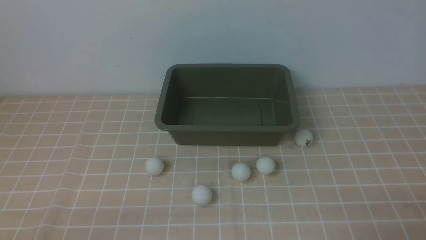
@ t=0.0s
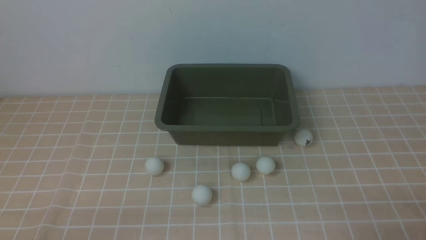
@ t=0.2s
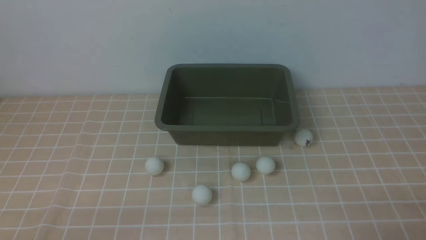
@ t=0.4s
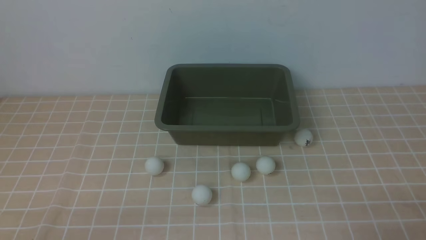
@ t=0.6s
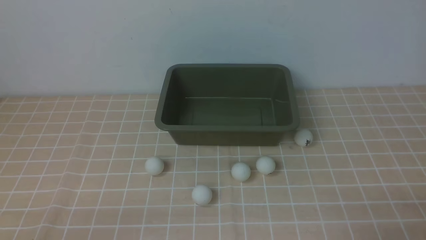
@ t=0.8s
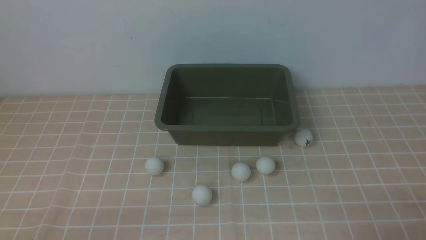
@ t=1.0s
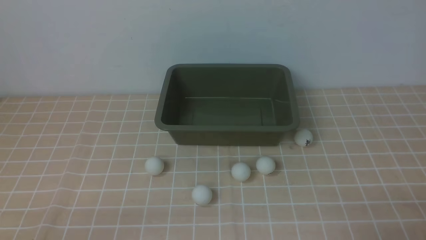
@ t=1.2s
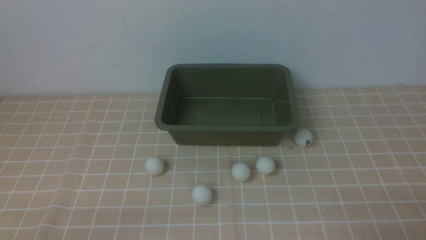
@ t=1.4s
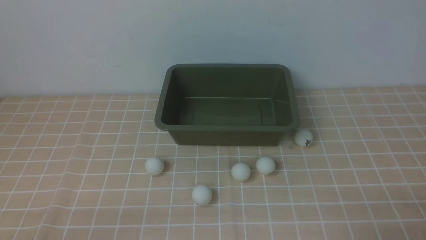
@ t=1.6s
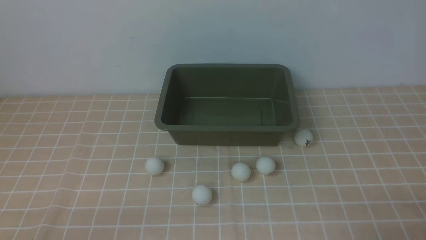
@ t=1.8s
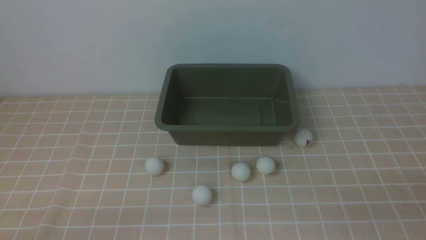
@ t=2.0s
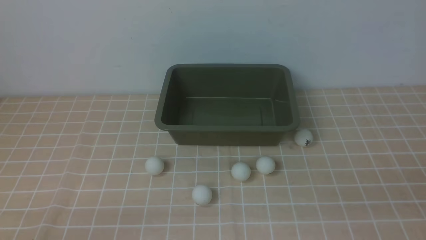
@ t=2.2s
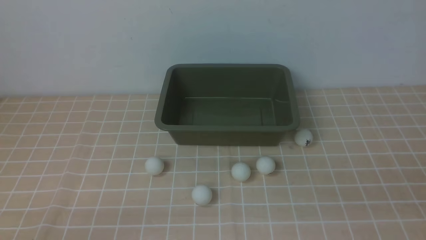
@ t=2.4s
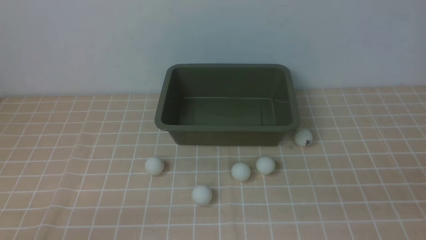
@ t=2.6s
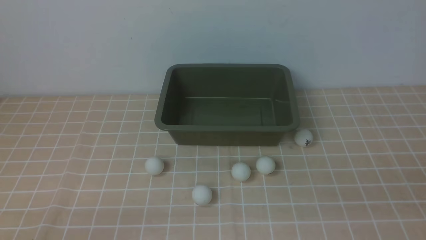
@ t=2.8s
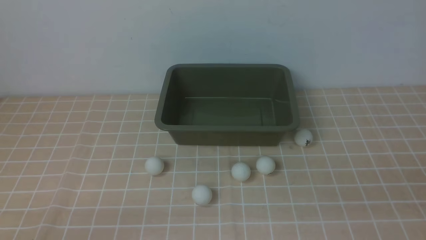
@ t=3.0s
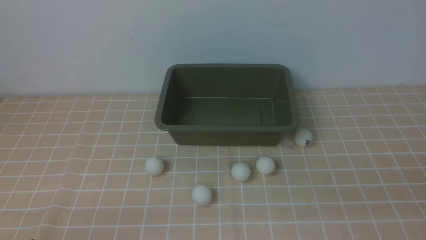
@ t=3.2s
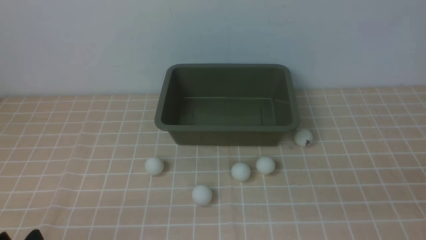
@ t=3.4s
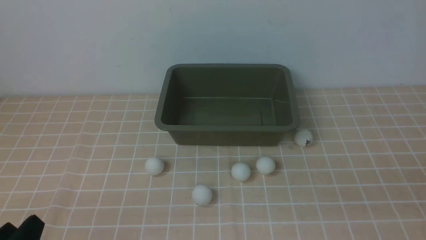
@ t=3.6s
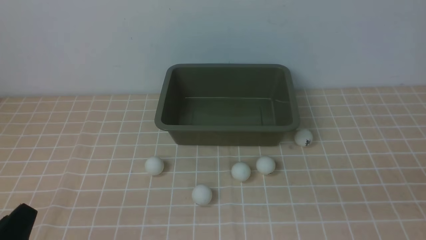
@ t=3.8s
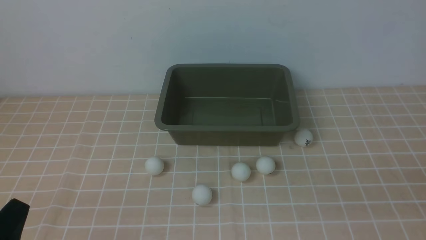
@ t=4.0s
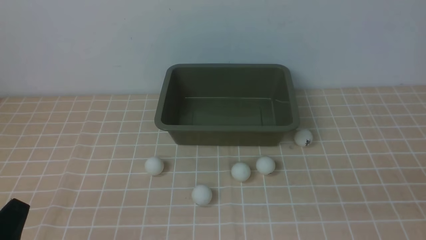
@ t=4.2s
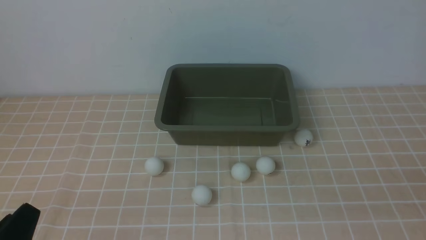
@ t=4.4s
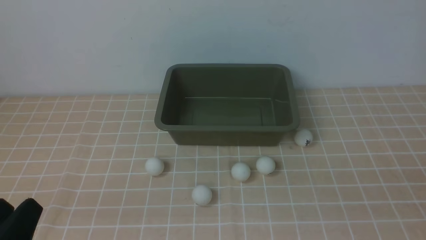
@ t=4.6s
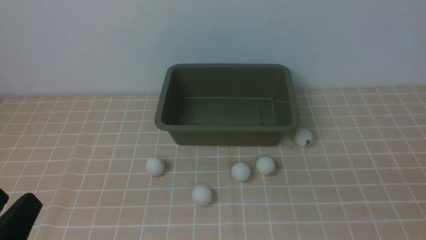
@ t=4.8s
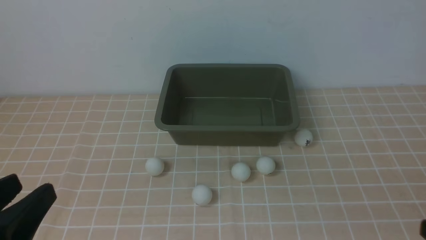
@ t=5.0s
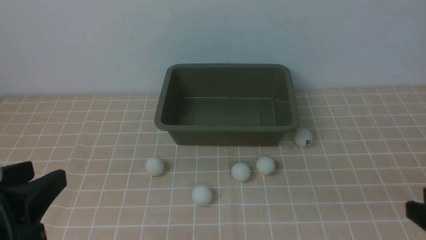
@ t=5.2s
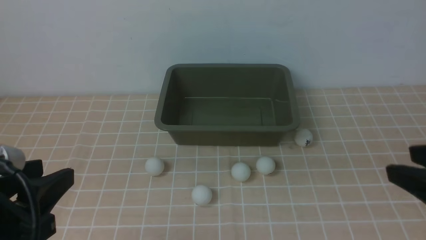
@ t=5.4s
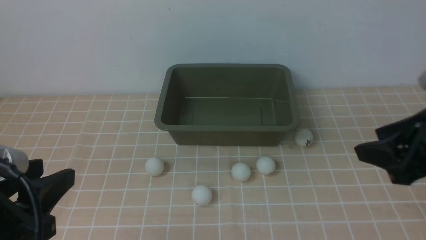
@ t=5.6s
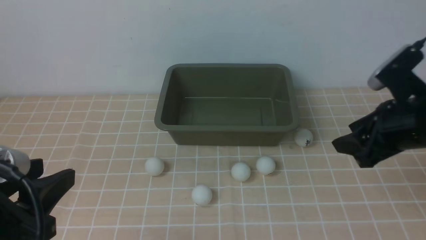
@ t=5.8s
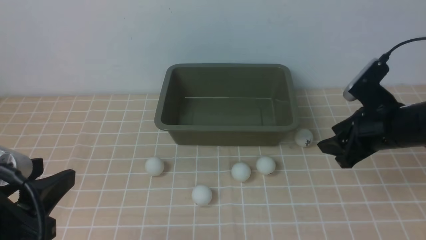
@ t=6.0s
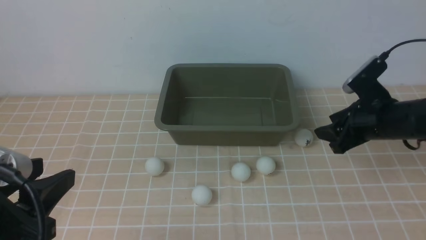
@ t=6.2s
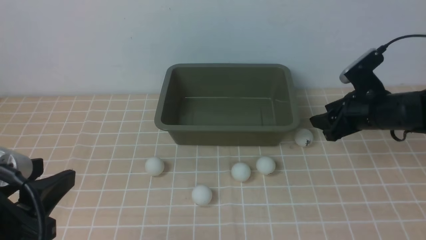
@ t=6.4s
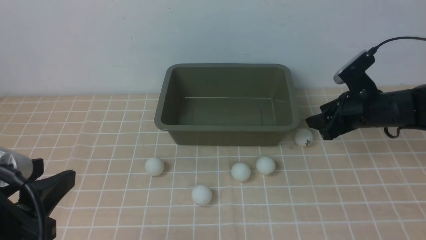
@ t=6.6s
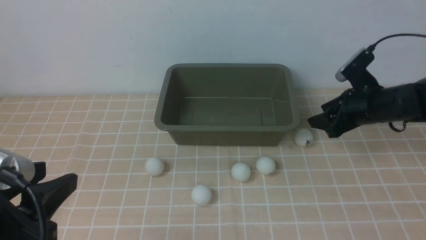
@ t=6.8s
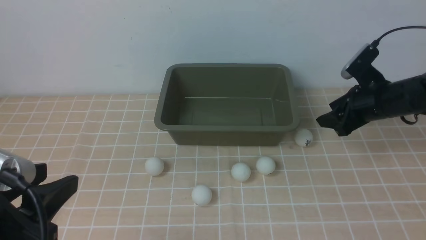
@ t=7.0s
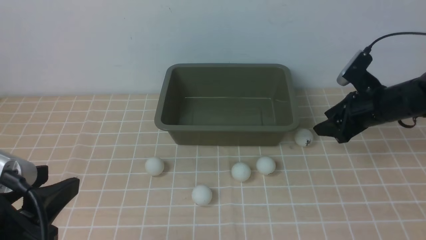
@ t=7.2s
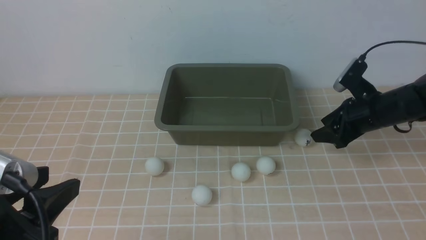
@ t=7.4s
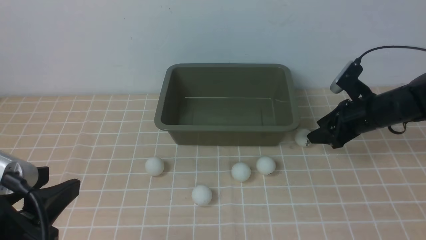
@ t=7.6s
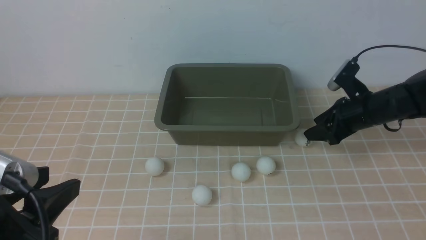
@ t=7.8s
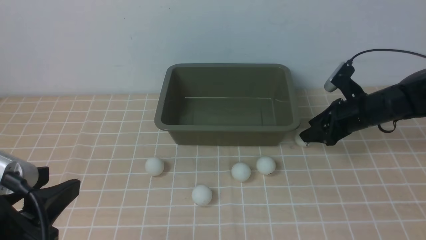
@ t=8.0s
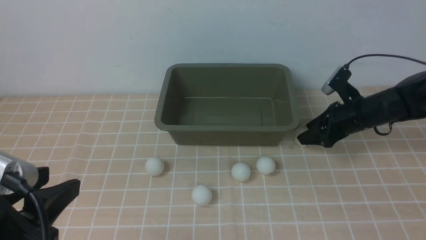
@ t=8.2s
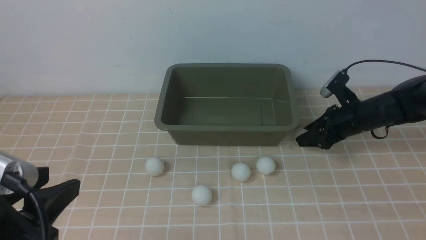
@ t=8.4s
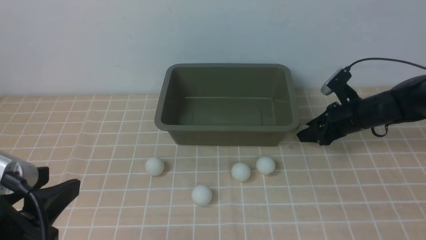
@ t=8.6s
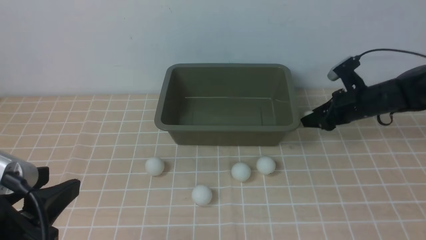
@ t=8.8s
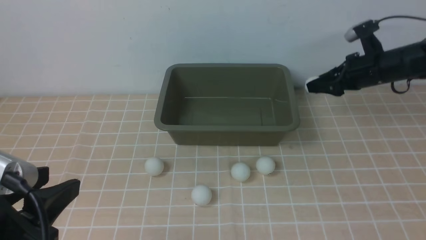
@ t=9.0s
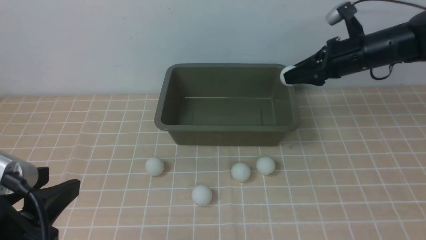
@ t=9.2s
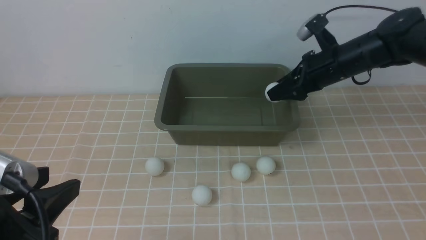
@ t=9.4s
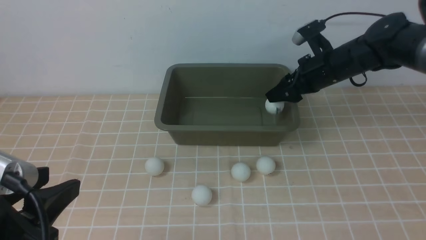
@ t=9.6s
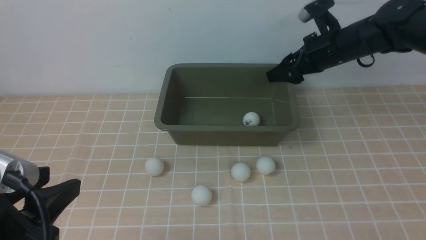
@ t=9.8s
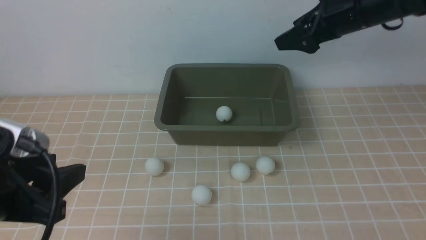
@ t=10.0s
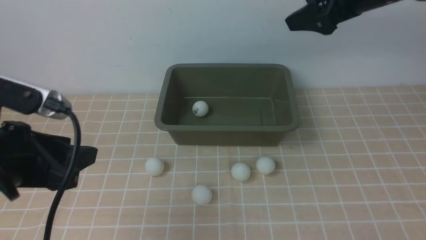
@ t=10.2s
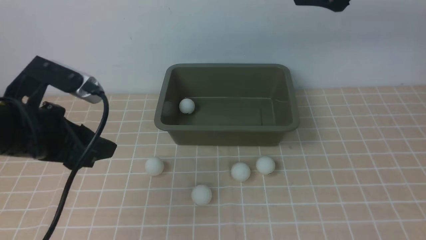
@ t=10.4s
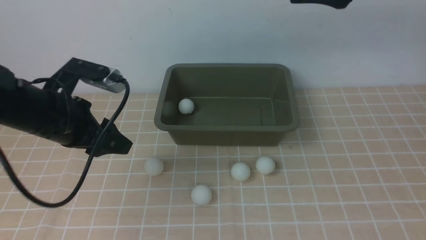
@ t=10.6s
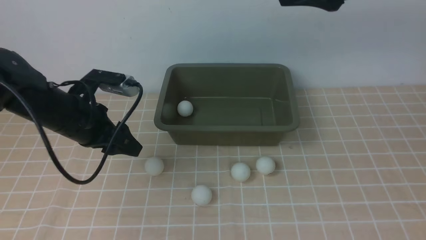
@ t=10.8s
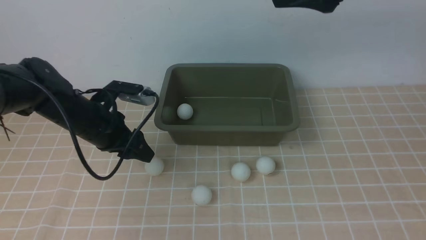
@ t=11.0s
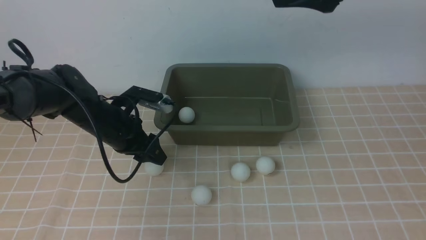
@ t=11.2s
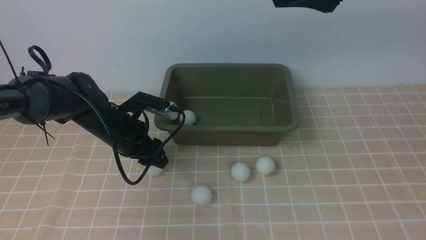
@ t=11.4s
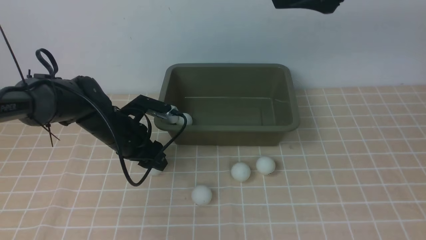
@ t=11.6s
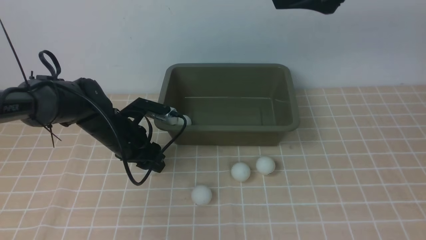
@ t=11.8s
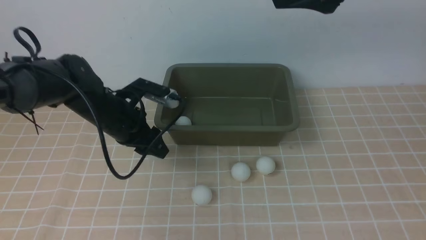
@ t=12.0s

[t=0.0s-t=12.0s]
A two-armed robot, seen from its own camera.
Step, t=0.0s to t=8.8s: use the right arm to clamp the table tennis ball closest to it.
Step, t=9.0s to t=9.8s: use the right arm to put the table tennis ball into the box.
Step, t=10.0s to t=11.8s: use the left arm to clamp the table tennis ball closest to it.
t=0.0s to t=1.6s: Both grippers stay about where they are.
t=4.4s to t=6.0s: The left gripper goes approximately 10 cm upward and forward, while the right gripper goes some 30 cm forward, and opens its fingers.
t=6.0s to t=7.6s: The right gripper heads forward and downward, covering roughly 10 cm.
t=7.6s to t=9.0s: The right gripper travels forward by about 5 cm.
t=9.0s to t=10.4s: The left gripper moves forward, approximately 15 cm. The right gripper moves upward and backward, about 25 cm, and opens up.
t=10.4s to t=12.0s: The left gripper heads forward, downward and to the right, covering some 15 cm. Meanwhile the right gripper changes place by some 5 cm.

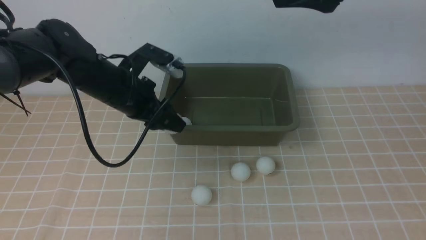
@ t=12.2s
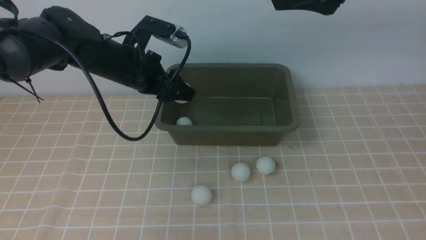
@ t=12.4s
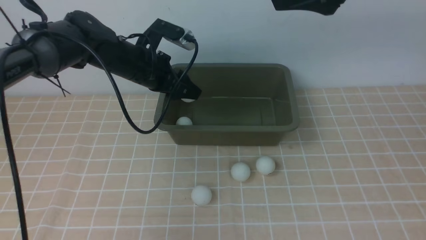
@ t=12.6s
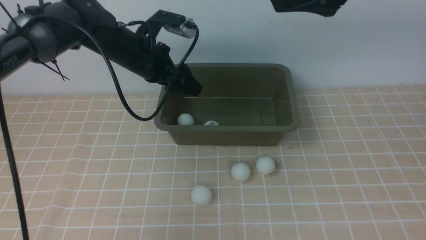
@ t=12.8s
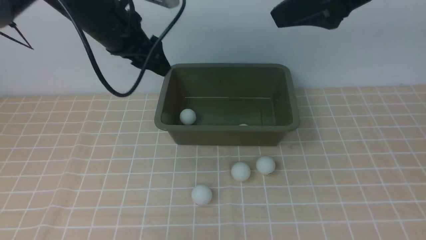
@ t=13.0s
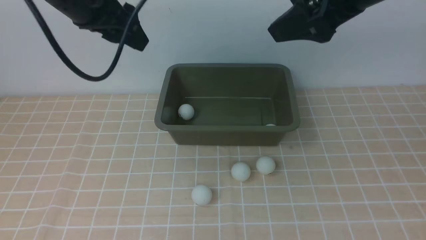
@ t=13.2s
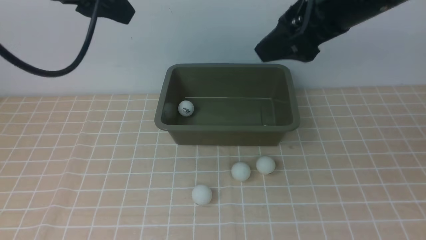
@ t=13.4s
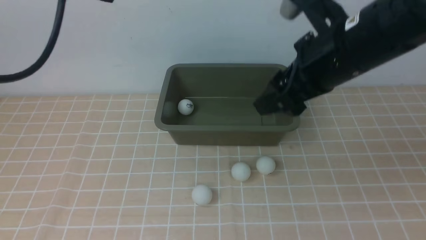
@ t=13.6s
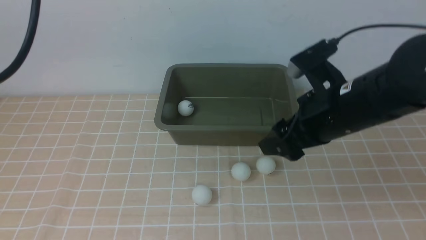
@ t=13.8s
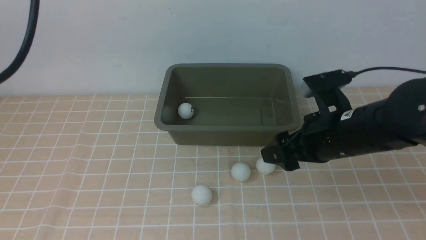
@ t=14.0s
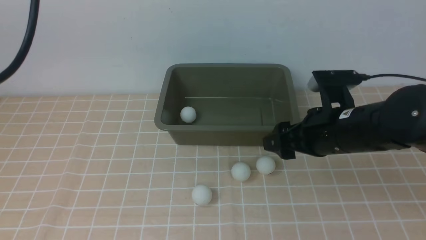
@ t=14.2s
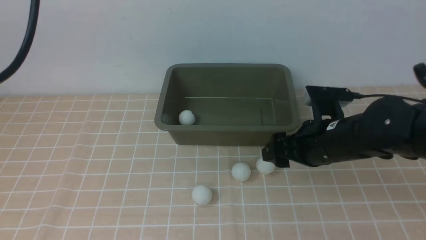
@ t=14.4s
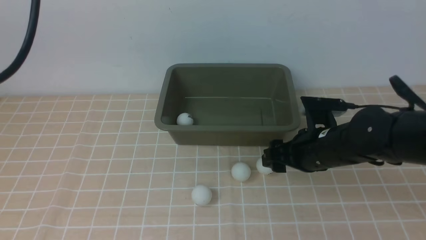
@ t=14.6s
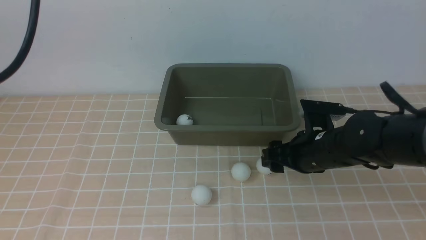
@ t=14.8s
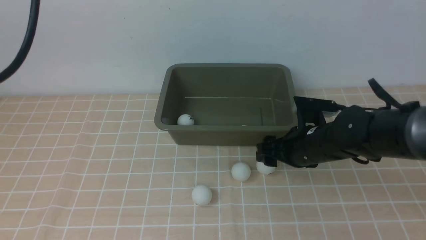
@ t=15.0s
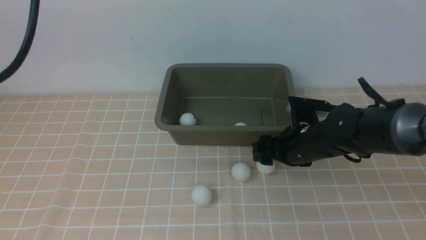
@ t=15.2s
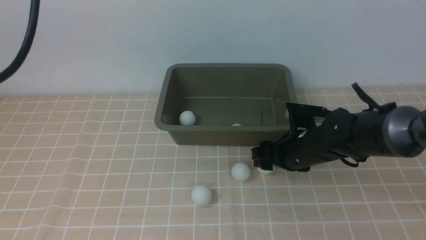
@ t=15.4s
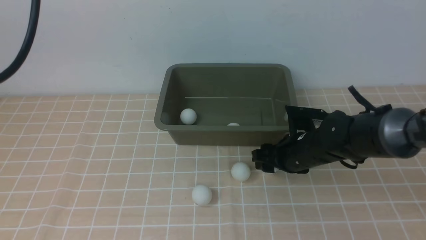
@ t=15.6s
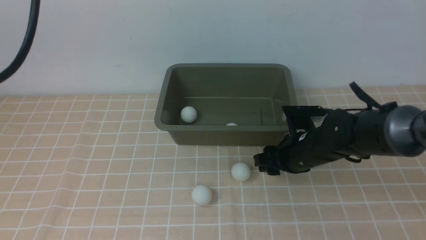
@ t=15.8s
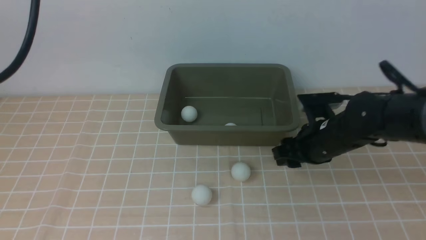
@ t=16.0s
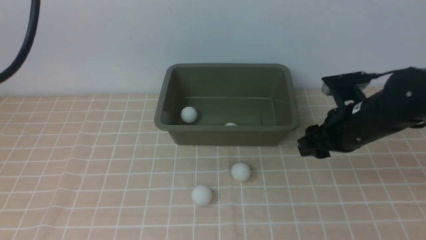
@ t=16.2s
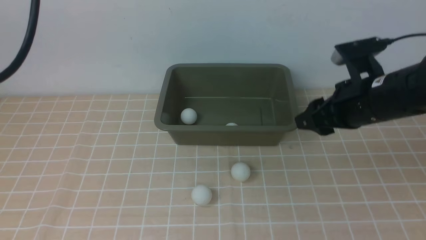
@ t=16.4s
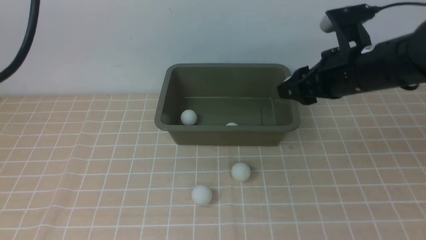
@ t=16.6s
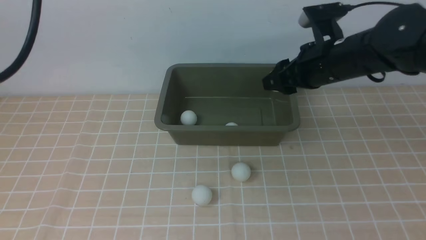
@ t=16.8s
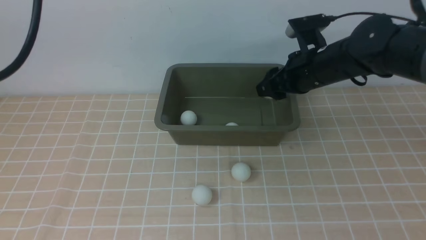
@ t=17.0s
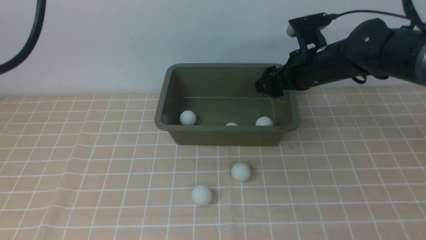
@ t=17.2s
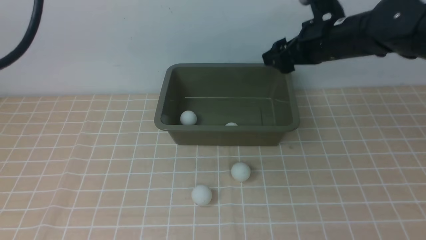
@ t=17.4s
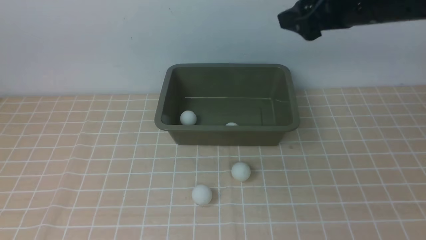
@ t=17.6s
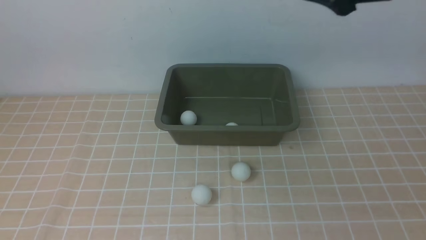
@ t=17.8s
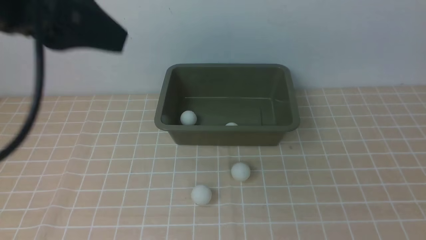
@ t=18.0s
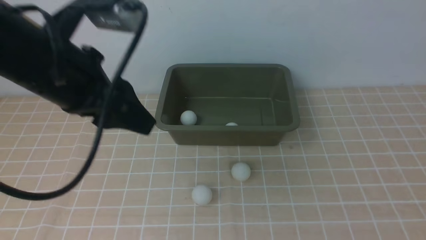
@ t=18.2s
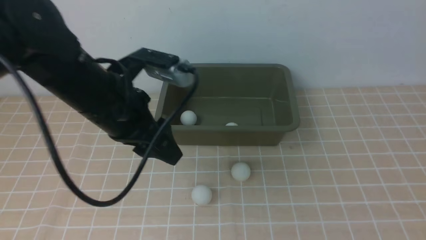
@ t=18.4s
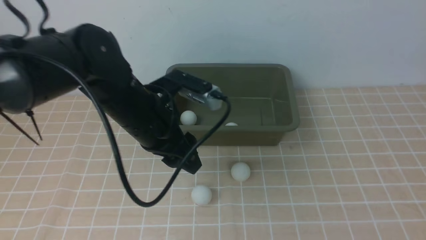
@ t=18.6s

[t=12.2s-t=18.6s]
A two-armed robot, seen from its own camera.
Step, t=12.2s to t=13.4s: use the left arm to put the table tennis ball into the box.
t=12.2s to t=13.8s: The left gripper goes about 30 cm upward and backward. Meanwhile the right gripper heads downward, covering approximately 15 cm.
t=13.8s to t=15.4s: The right gripper moves downward, roughly 15 cm.
t=15.4s to t=17.0s: The right gripper heads upward and forward, covering approximately 15 cm.
t=17.0s to t=18.6s: The left gripper goes some 25 cm downward; the right gripper shifts some 30 cm upward and backward.
